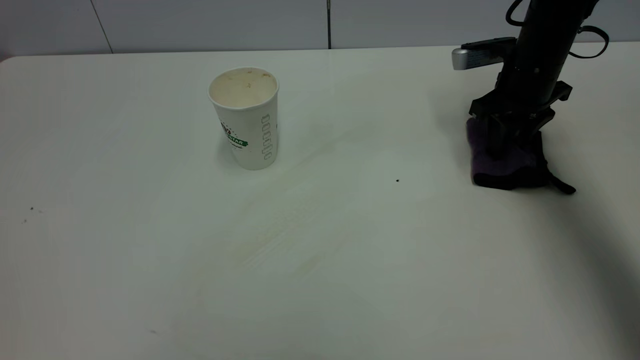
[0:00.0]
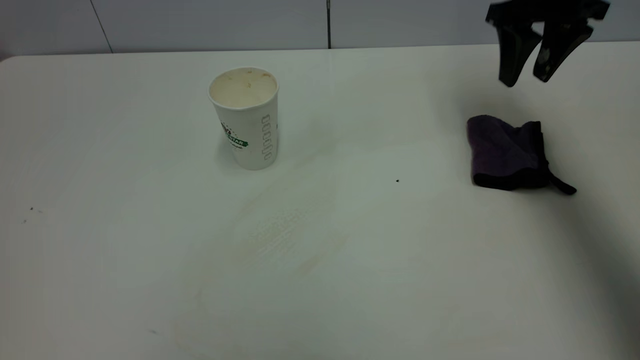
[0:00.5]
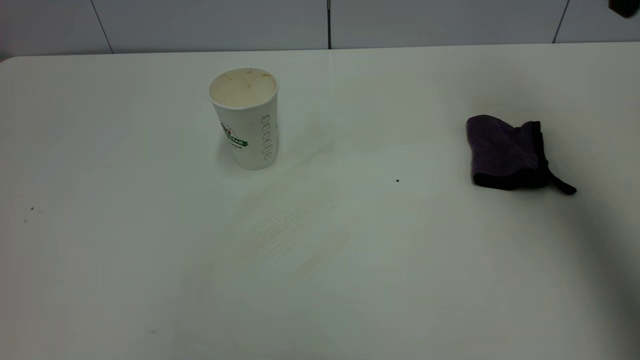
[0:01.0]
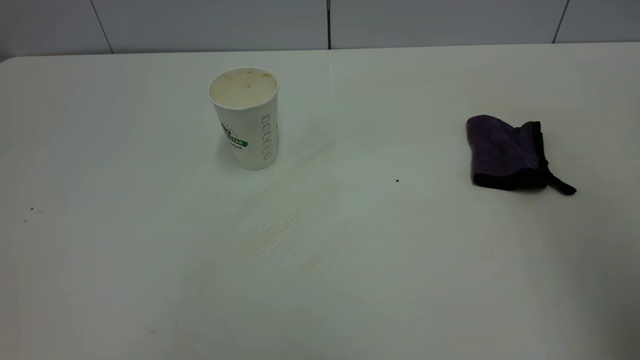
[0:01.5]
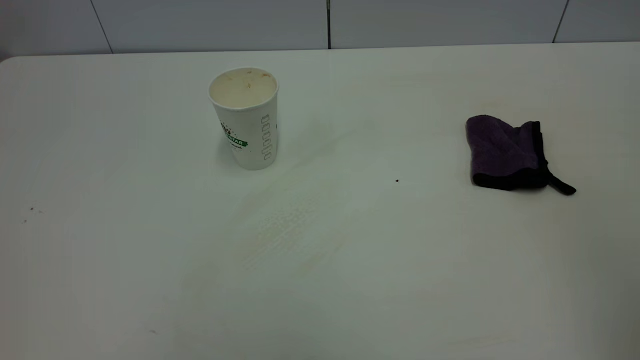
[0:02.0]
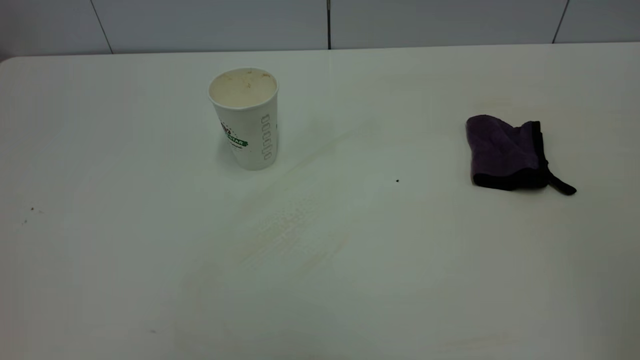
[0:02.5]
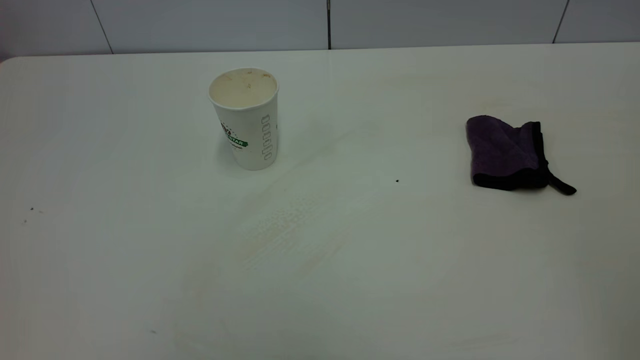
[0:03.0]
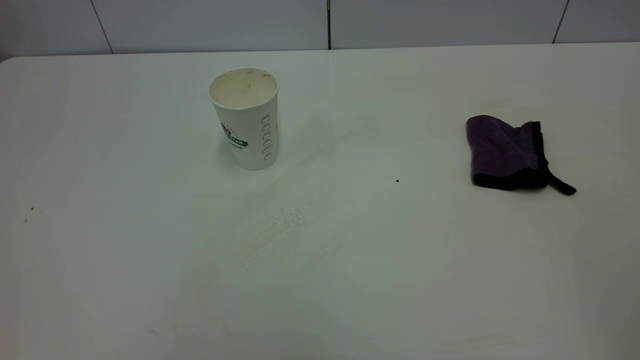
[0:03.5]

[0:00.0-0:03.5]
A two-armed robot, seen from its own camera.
Task of the whole recording: the left gripper pick up the fallen cup and place it upright, the right gripper grasp the purple rag and wipe the tea stain on the table, the right gripper put the purple rag back in its original position.
0:00.0 to 0:02.0: The right gripper shifts approximately 50 cm backward and upward.
